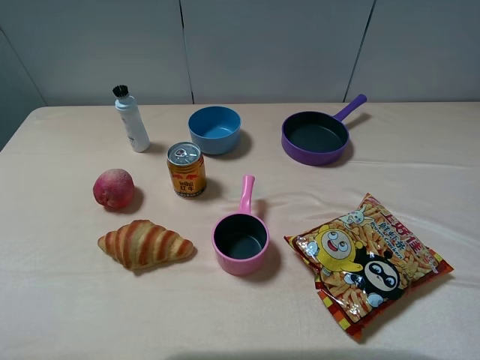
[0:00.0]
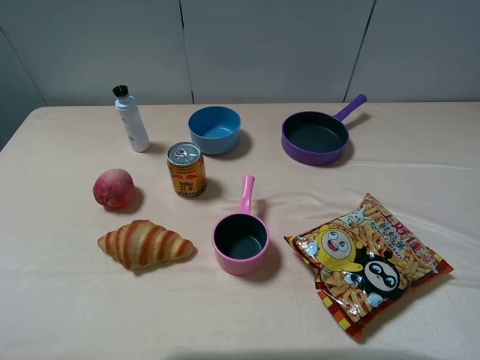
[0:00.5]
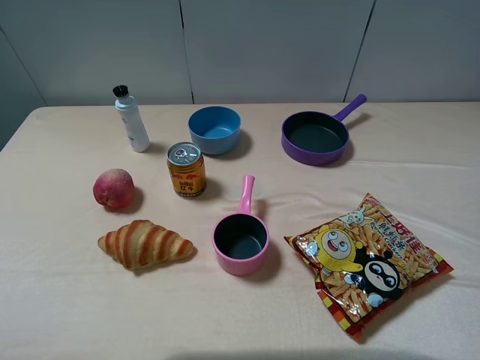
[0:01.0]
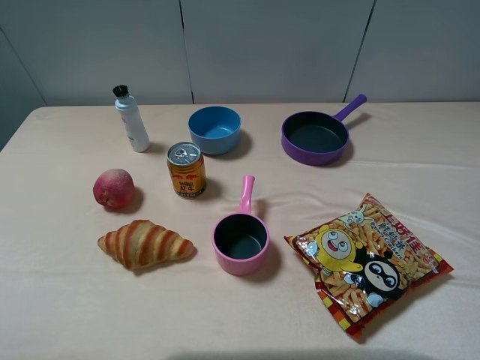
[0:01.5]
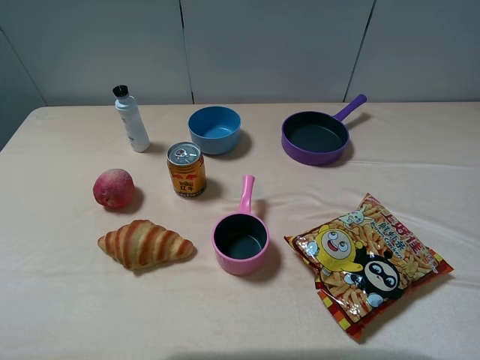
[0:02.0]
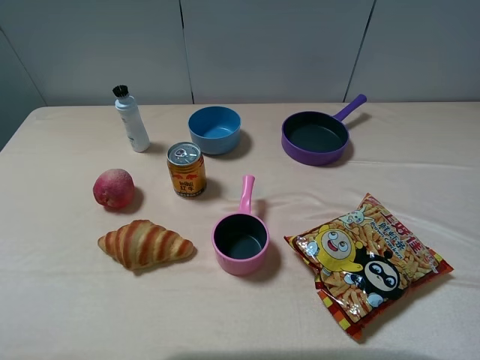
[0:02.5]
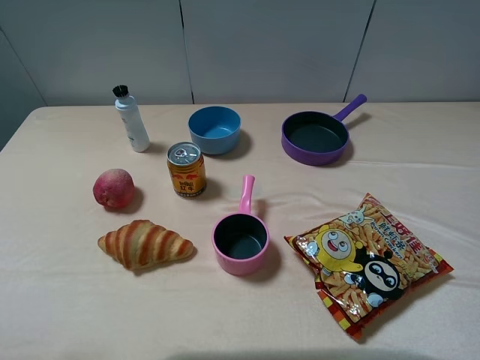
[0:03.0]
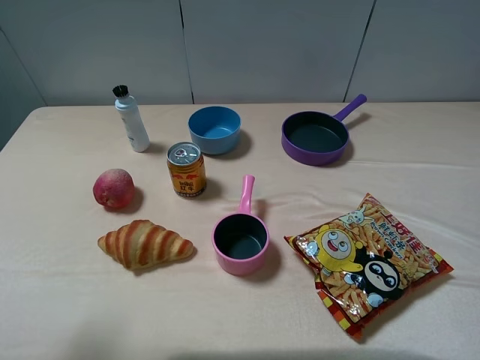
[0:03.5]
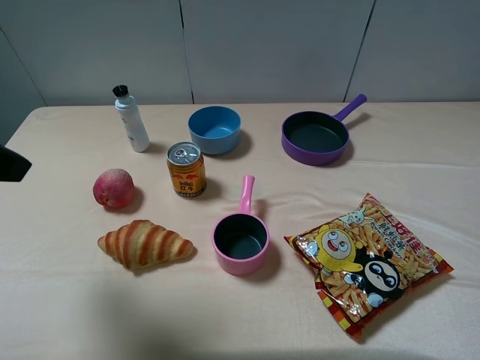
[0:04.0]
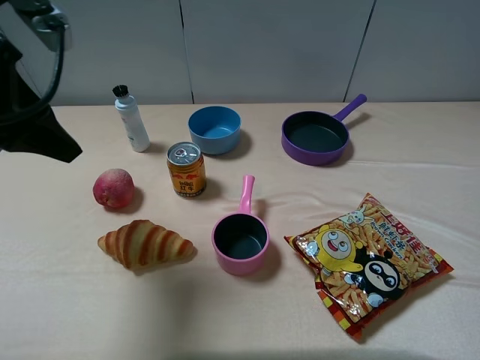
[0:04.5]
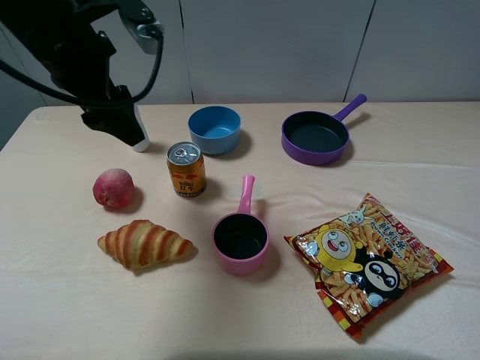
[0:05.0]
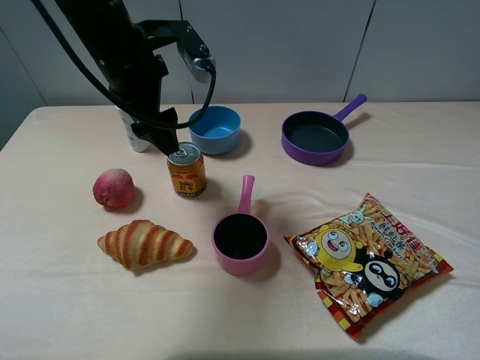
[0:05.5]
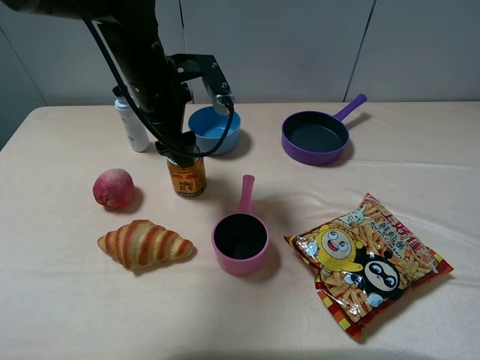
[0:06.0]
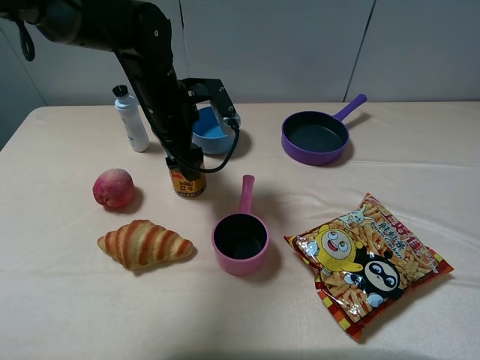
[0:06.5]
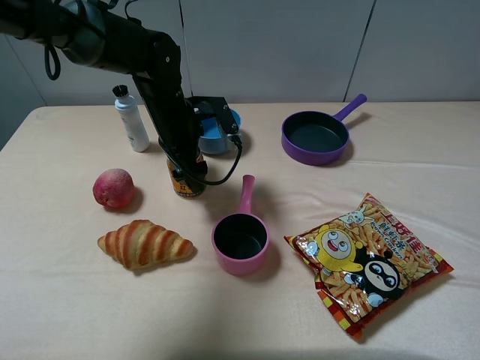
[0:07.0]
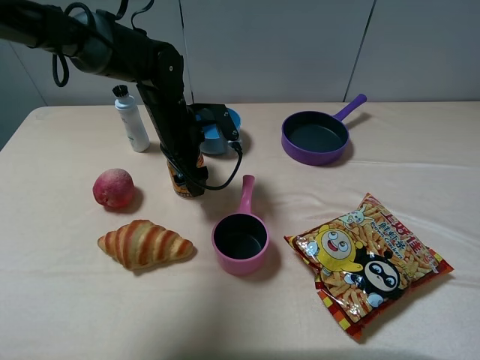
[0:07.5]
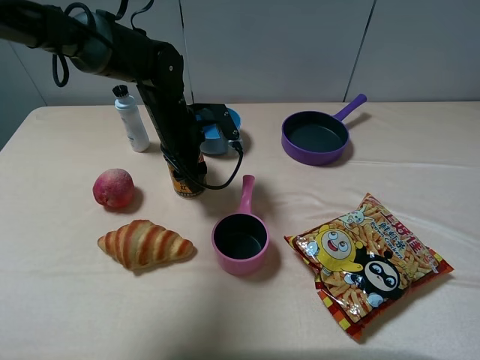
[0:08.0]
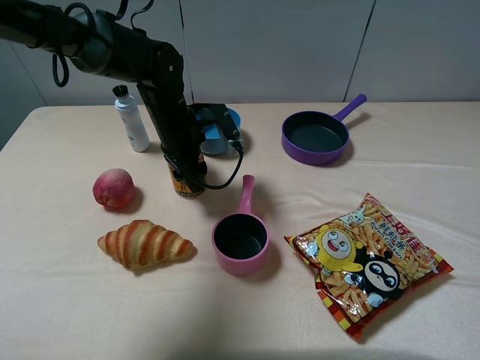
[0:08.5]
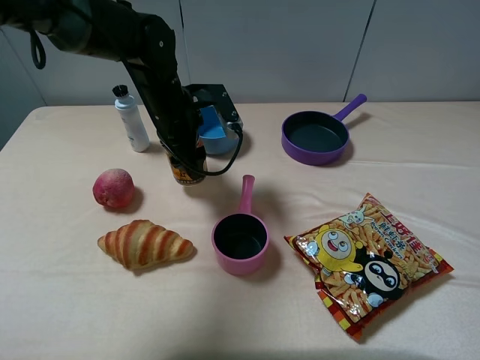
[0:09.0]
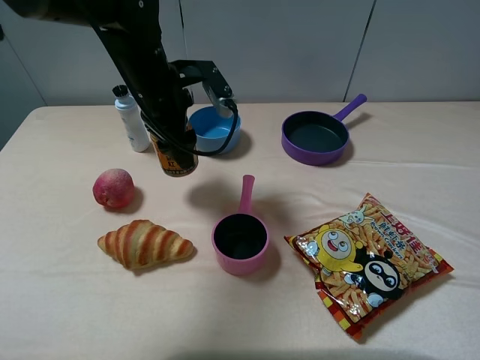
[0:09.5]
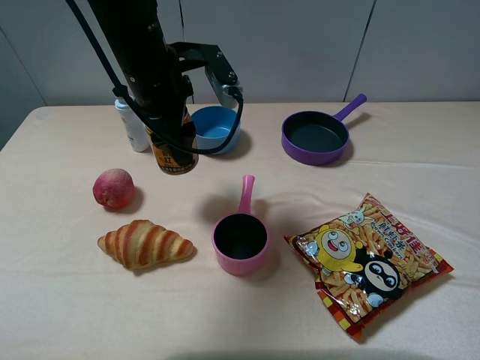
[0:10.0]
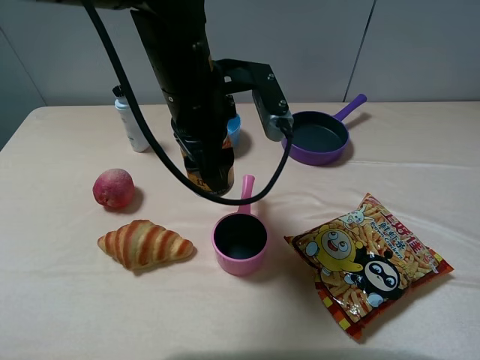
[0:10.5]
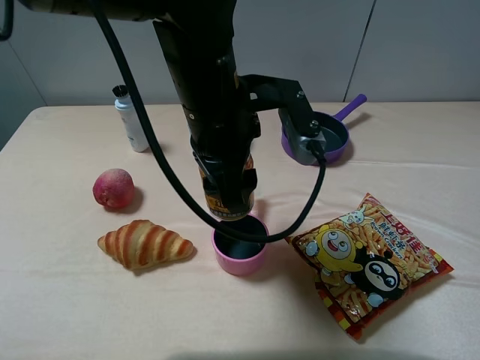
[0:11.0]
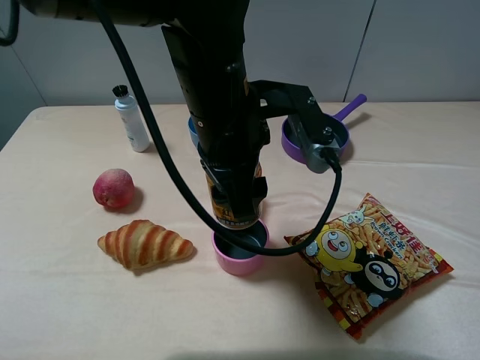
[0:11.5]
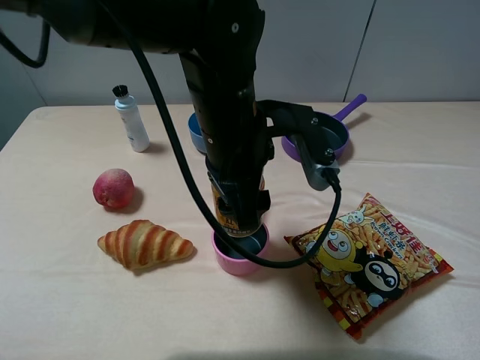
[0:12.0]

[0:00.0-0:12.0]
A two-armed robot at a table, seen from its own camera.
Task of the whole recording: pick up an item with a gripper and place it in a random container on the table.
Step, 0:00.0 to 0:07.5: Grasp the red bull with the left gripper.
0:00.0 to 0:02.0: The two grippers keep their place.
0:02.0 to 0:04.0: The left gripper travels forward by about 15 cm.
0:04.0 to 0:06.0: The left gripper goes roughly 30 cm forward, to the right and downward.
0:06.0 to 0:08.0: The left gripper moves downward, about 10 cm, and closes up.
0:08.0 to 0:10.0: The left gripper heads upward and backward, covering roughly 15 cm.
0:10.0 to 0:12.0: The left gripper heads to the right and backward, covering roughly 15 cm.

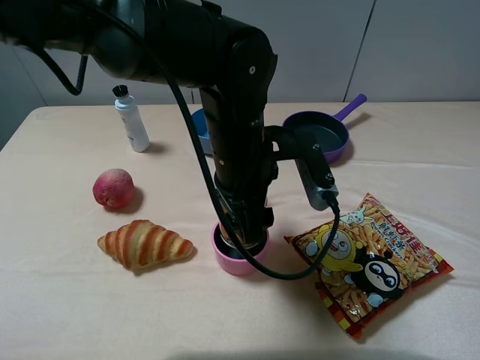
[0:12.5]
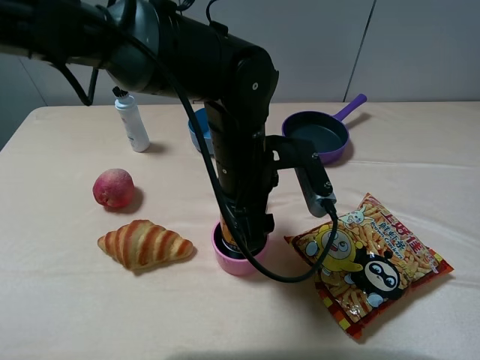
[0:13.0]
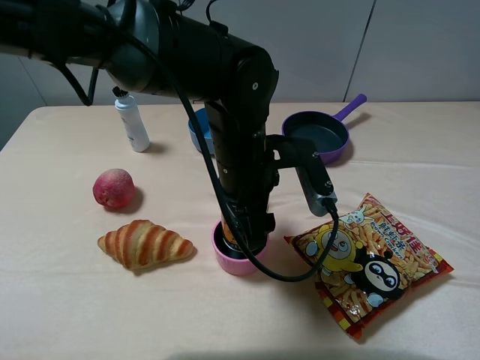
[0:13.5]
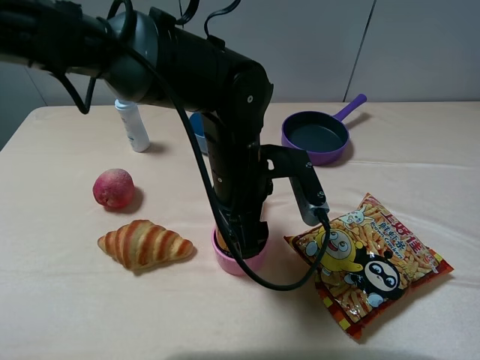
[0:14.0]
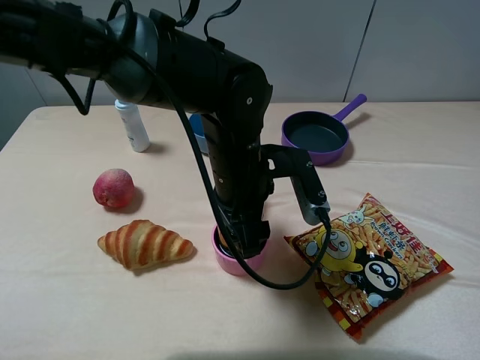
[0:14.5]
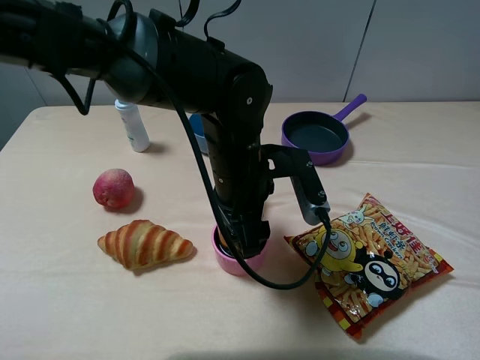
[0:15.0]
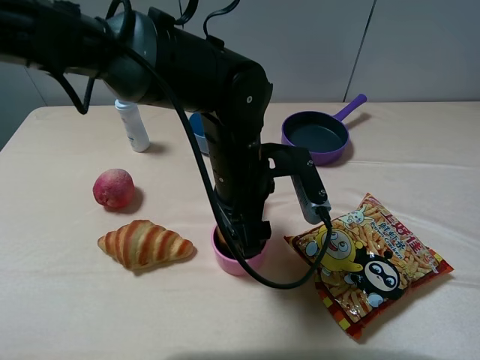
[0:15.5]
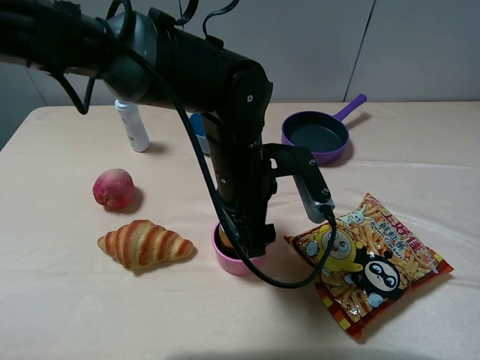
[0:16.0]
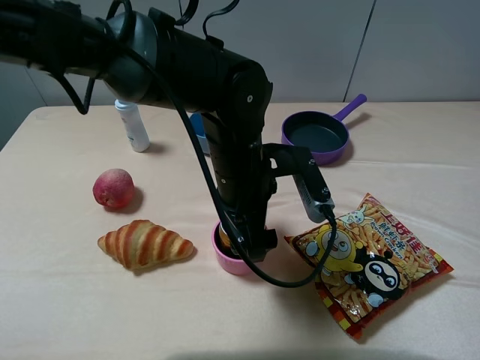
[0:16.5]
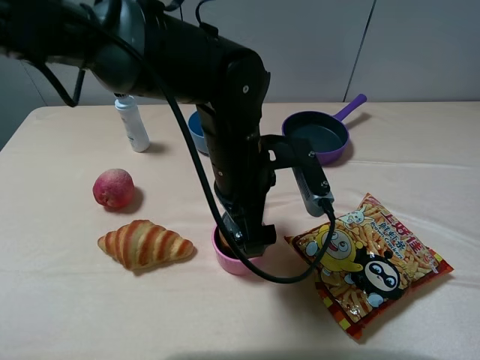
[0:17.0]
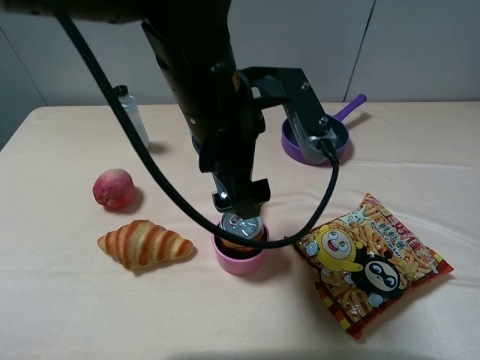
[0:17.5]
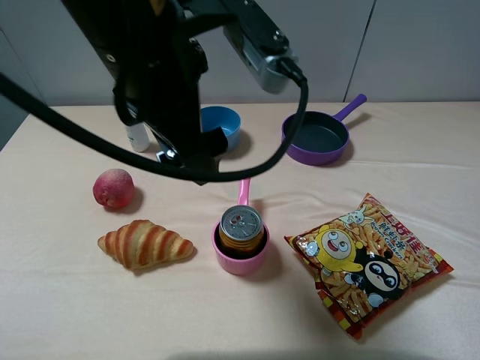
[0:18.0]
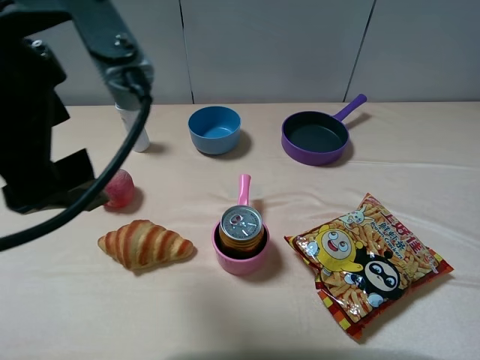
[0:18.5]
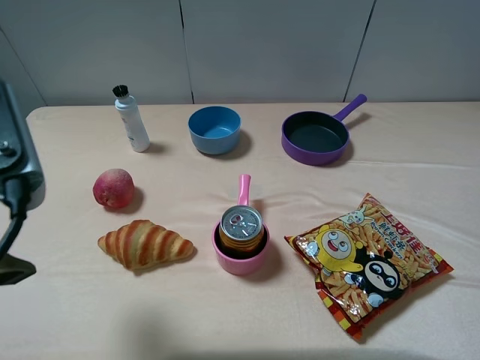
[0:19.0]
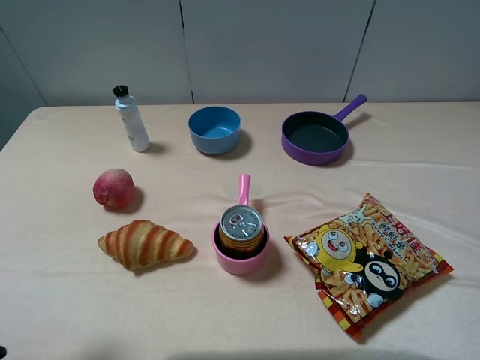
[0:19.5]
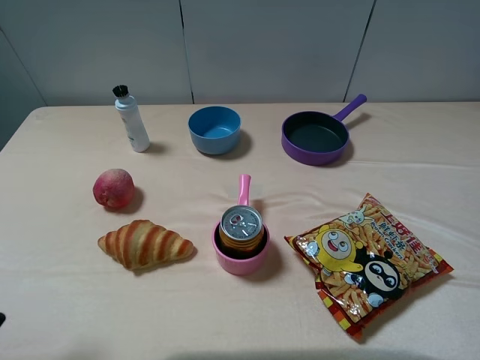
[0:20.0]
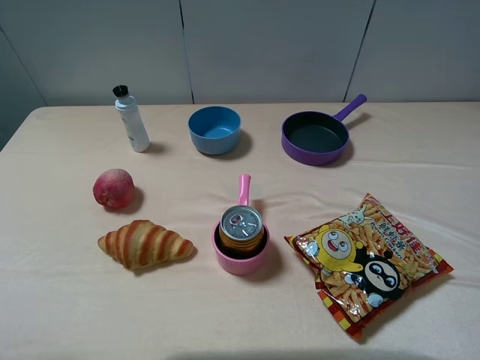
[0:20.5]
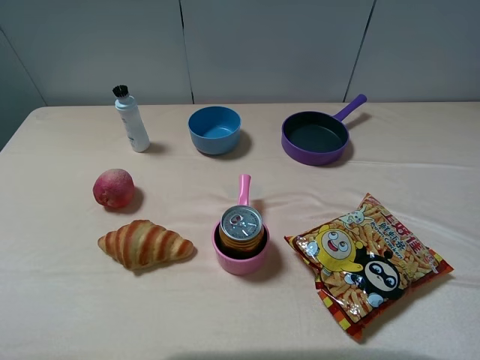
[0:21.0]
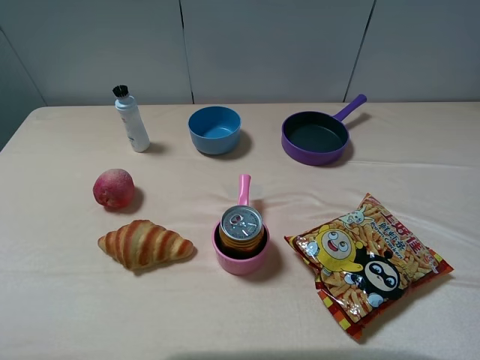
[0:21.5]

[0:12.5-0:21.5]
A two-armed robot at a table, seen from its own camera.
Task of the whole recording: pick up an item with a gripper and place it in a random container on the table.
0:12.5 to 0:14.5: The grippers stay close to where they were, moving slightly.
0:14.5 to 0:17.0: The left gripper opens.
0:17.0 to 0:19.5: The left gripper is displaced to the left and backward by some 30 cm.
